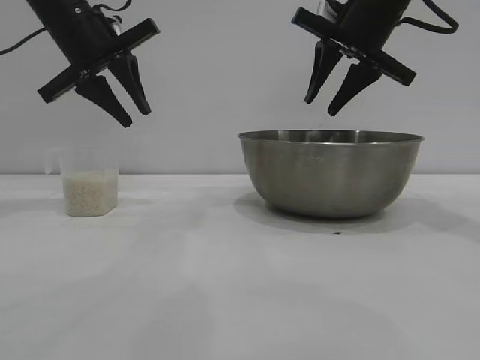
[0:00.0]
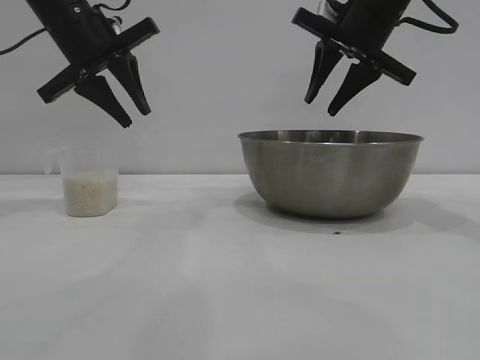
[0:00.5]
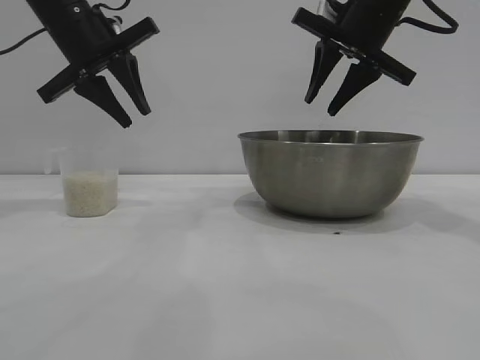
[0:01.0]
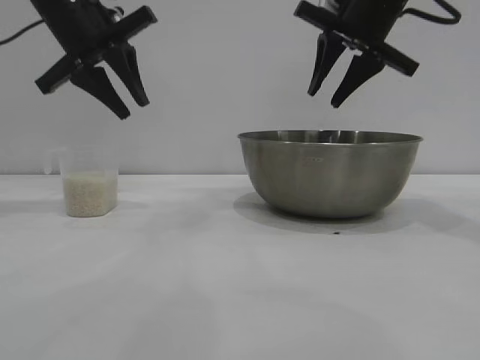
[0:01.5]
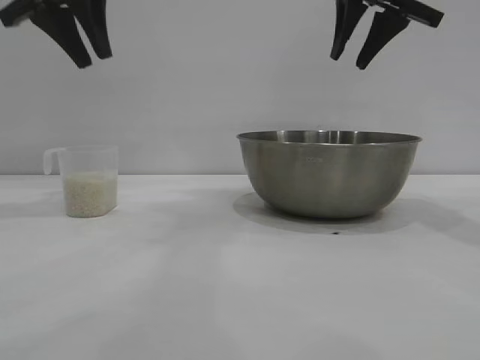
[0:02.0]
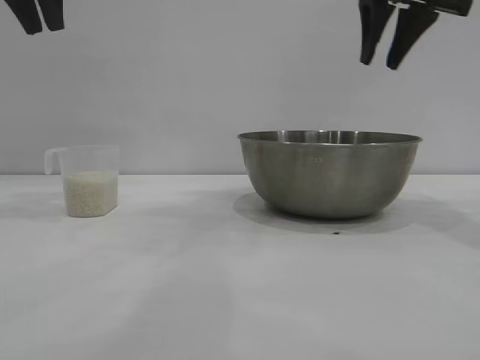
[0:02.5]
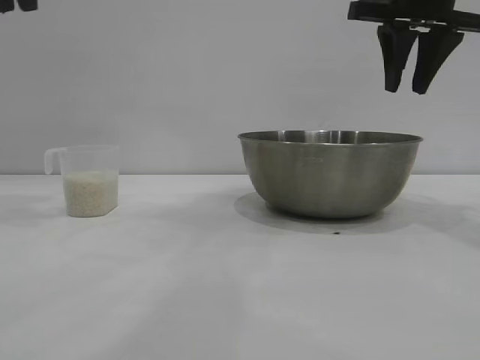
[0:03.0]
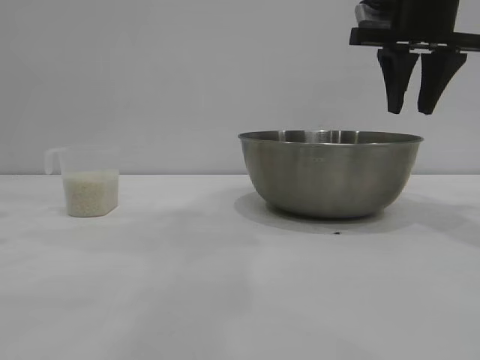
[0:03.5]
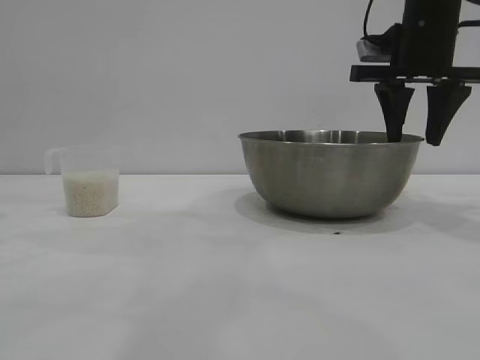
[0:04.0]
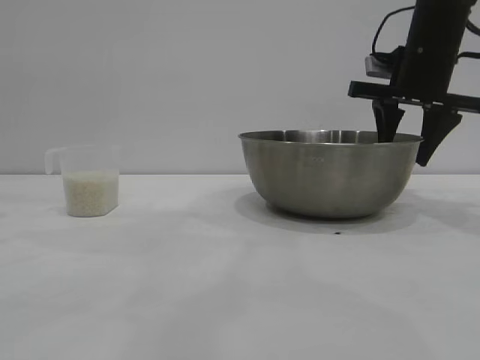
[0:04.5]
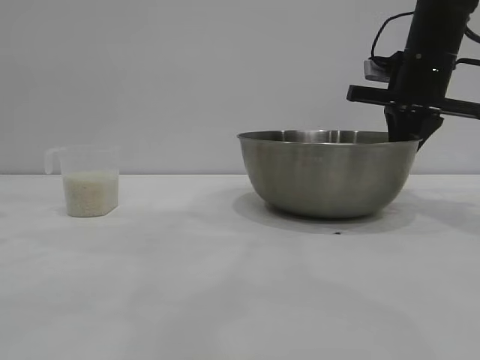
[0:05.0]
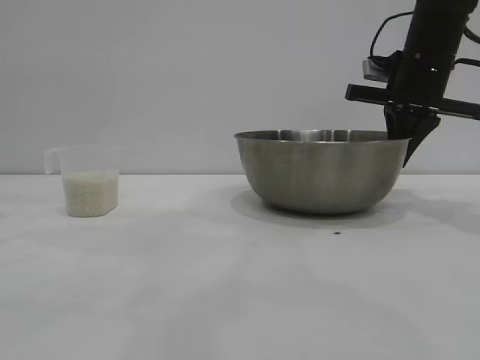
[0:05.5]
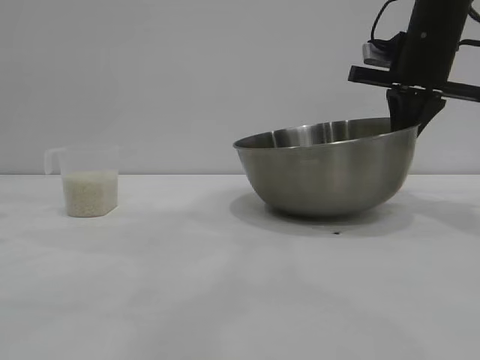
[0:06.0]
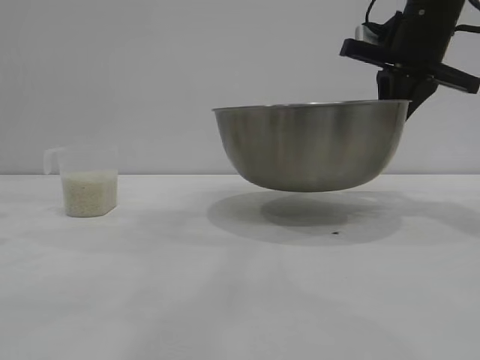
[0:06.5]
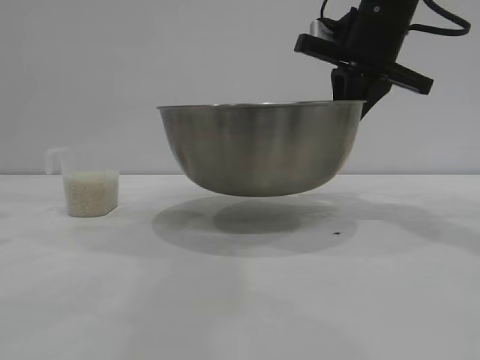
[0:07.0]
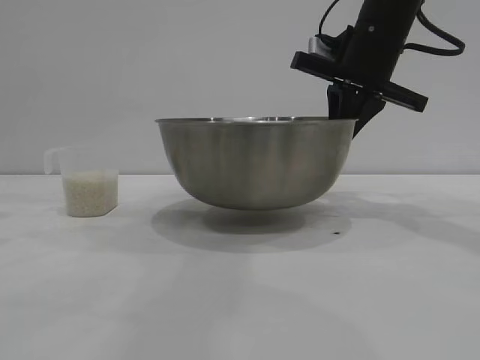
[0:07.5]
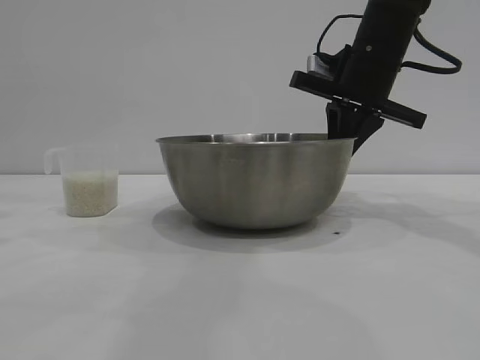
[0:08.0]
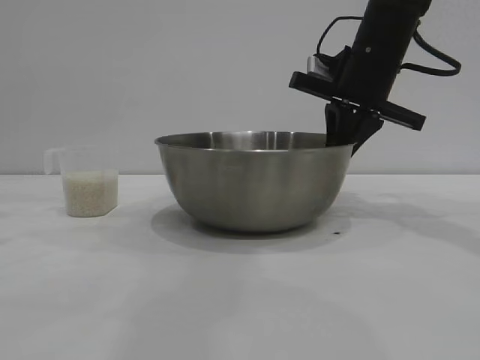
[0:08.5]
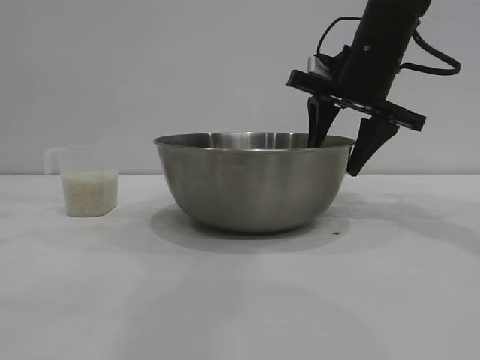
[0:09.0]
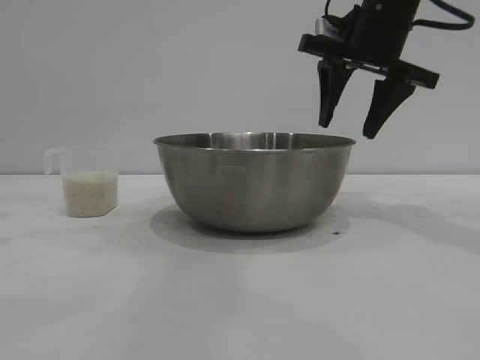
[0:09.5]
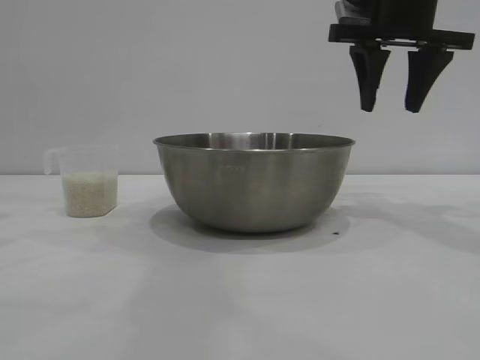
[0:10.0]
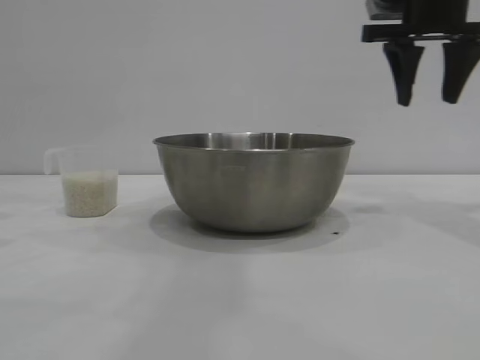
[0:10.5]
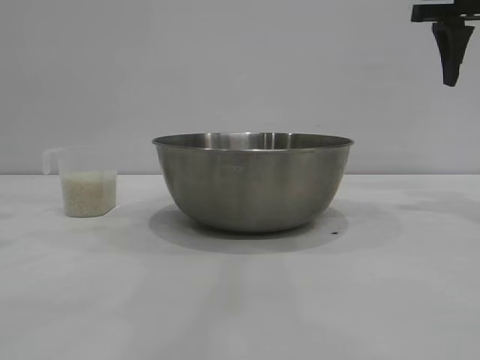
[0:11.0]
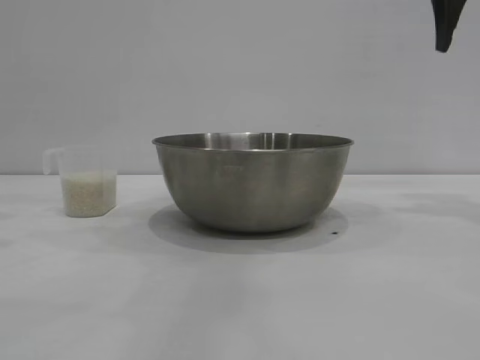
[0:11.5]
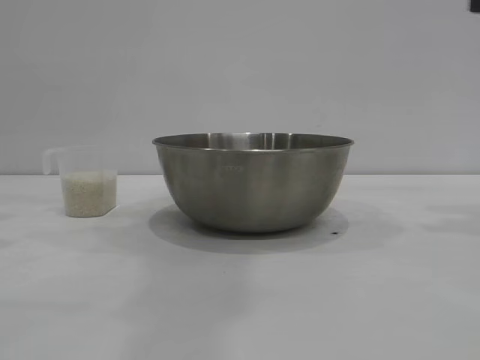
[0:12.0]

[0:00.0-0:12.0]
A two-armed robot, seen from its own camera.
Task of the whole recording: the right gripper grasp the rice container and place it in the center of the table, the left gripper grasp the rice scoop and pour the rice into the rice container.
Step, 0:00.0 to 0:06.0: Pick up the bowl with the right gripper.
Step, 0:07.0 to 0:09.0: Place the bowl in the center of view with the right gripper.

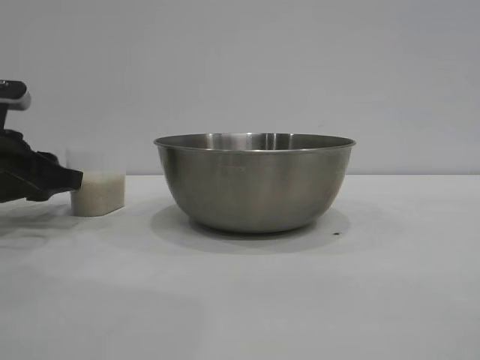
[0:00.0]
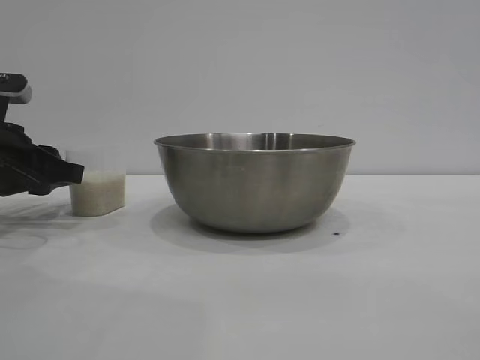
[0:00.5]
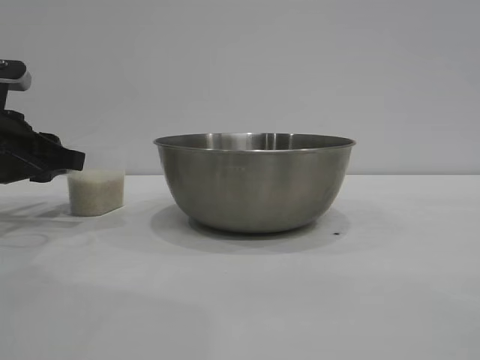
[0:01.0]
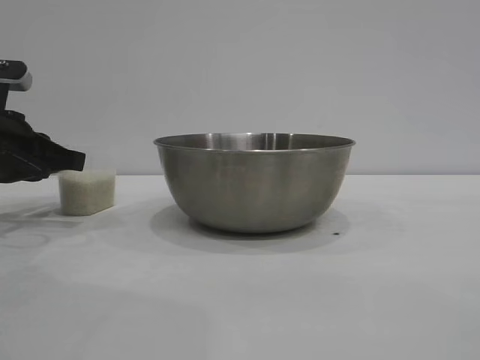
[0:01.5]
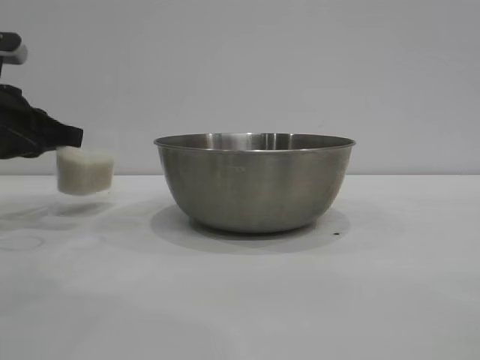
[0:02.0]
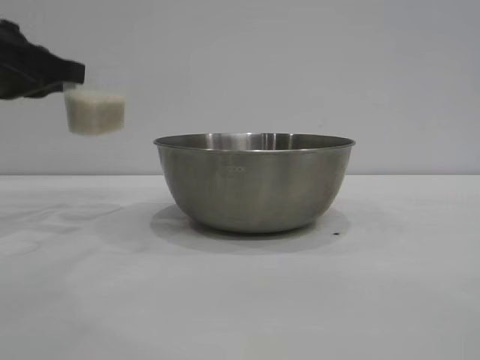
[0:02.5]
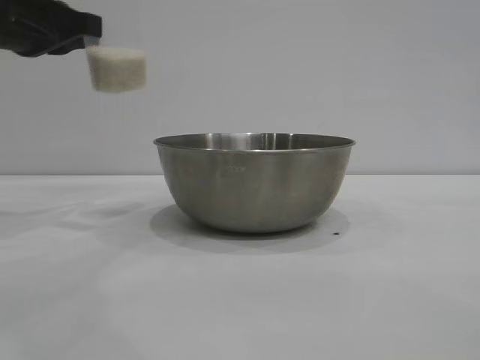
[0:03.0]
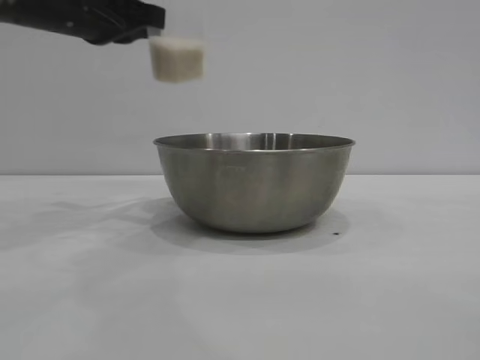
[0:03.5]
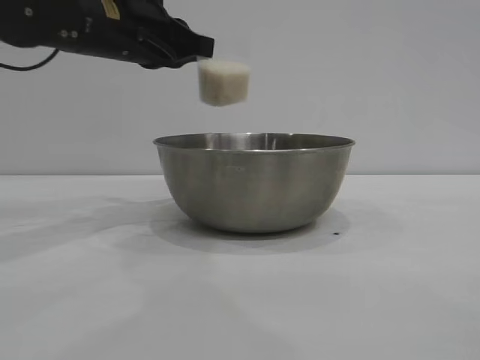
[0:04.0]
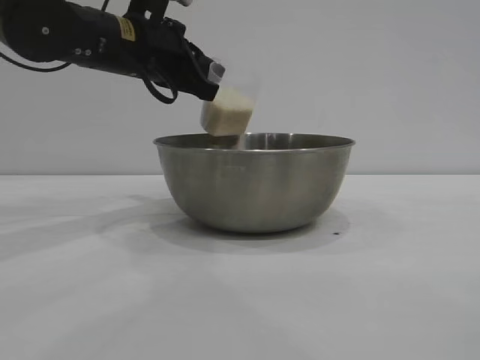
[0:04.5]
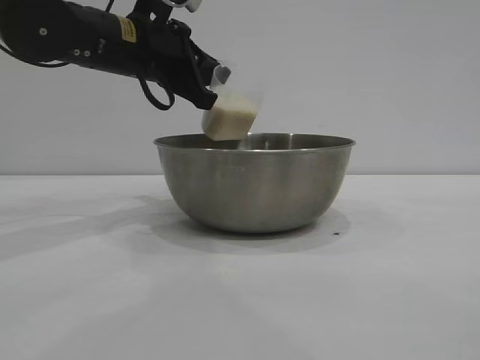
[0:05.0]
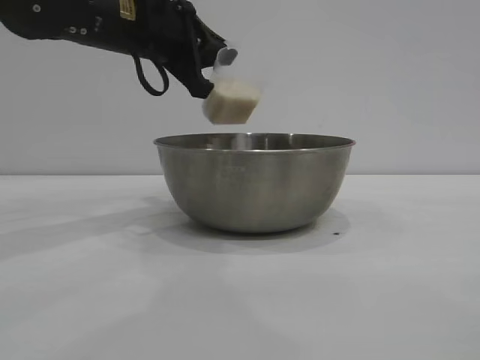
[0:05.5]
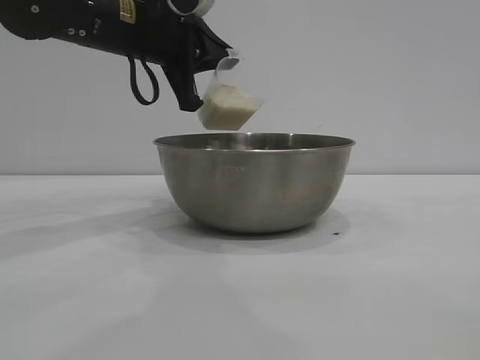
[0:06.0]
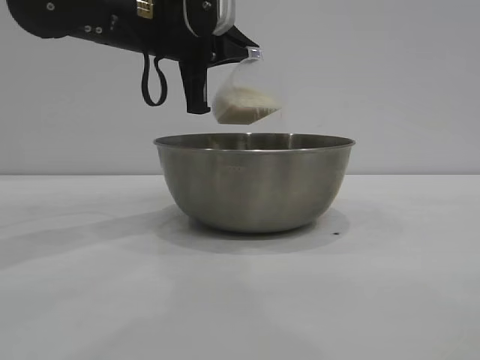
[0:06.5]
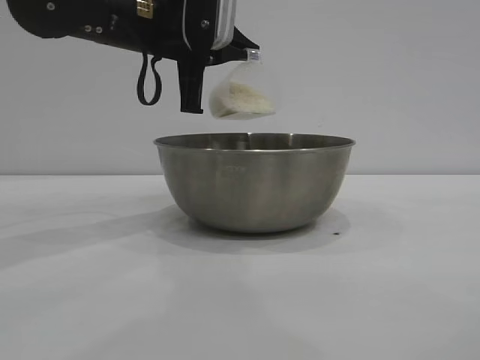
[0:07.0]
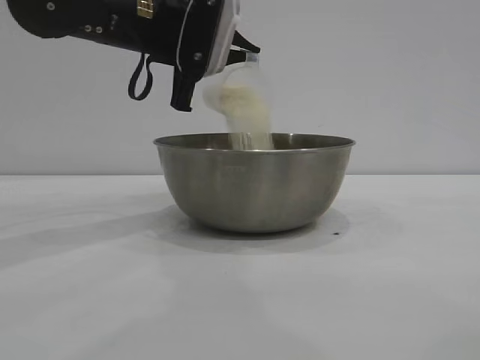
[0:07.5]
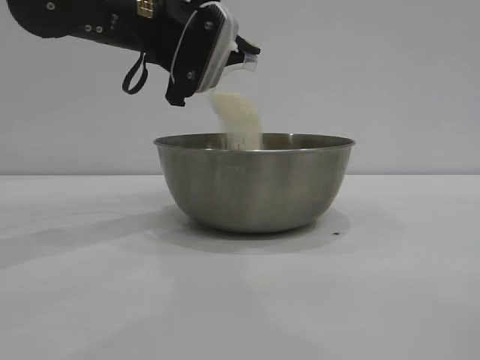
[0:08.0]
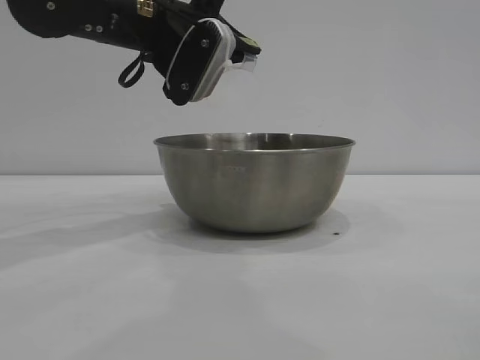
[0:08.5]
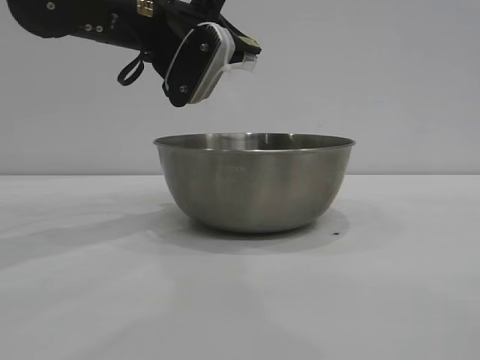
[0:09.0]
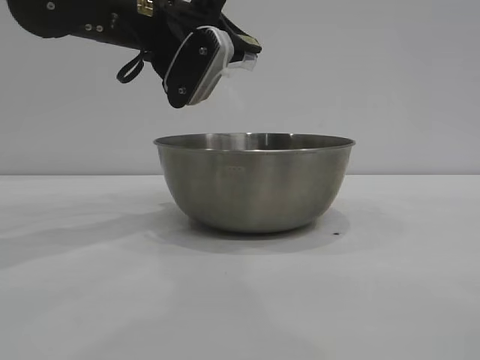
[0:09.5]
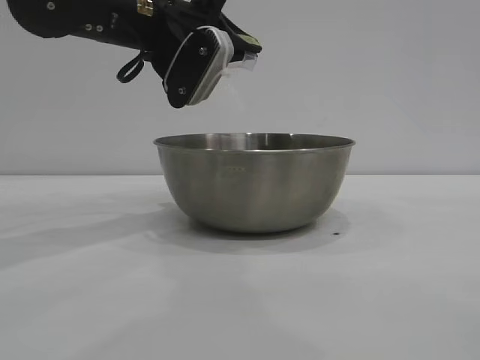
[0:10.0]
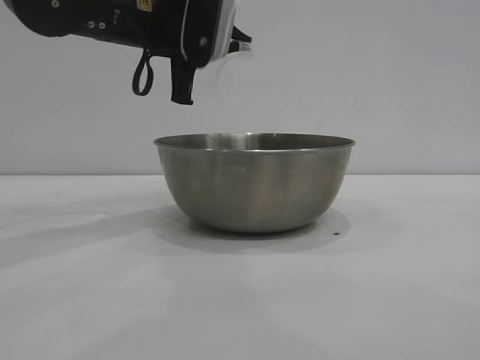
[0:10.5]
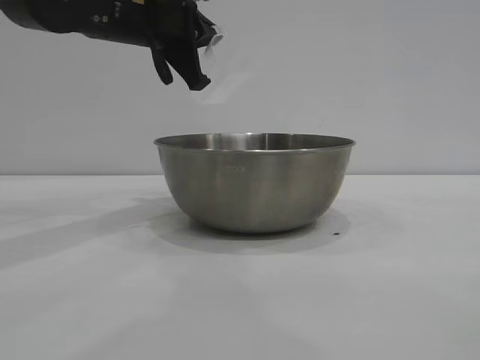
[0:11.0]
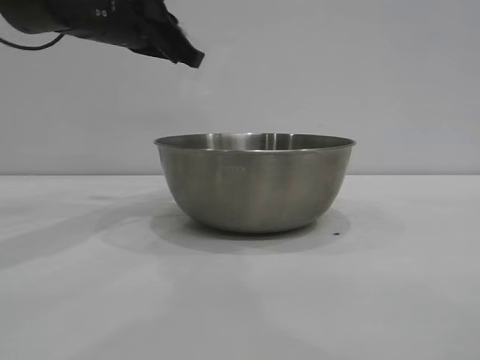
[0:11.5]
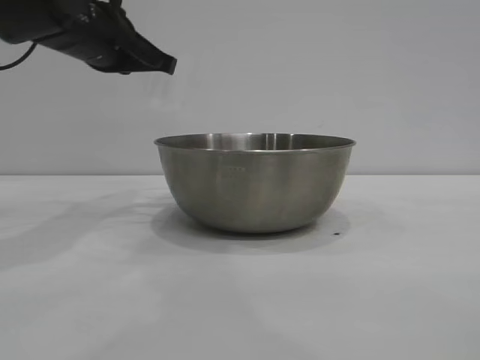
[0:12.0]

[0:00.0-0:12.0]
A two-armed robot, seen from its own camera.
Task of the whole recording: the right gripper grasp the rice container and place it in the center of the table, the left gripper grasp the rice scoop and pour the rice into the rice container.
Step, 0:00.0 to 0:02.5: Pick up the cup with rice in it with the left gripper.
Step, 0:03.0 to 0:10.5: Pour the rice from the cup into the bowl with the left gripper.

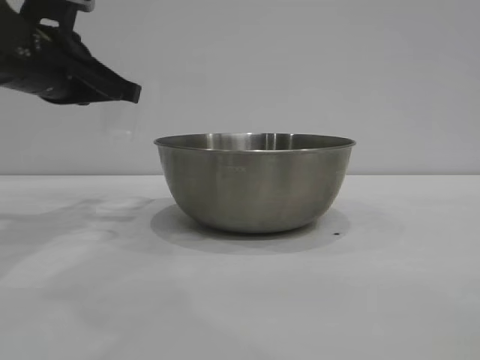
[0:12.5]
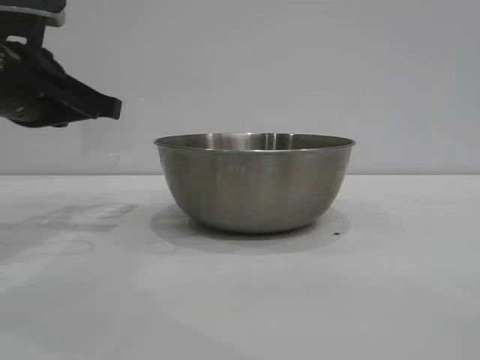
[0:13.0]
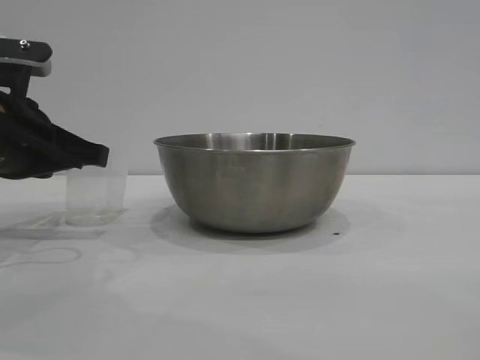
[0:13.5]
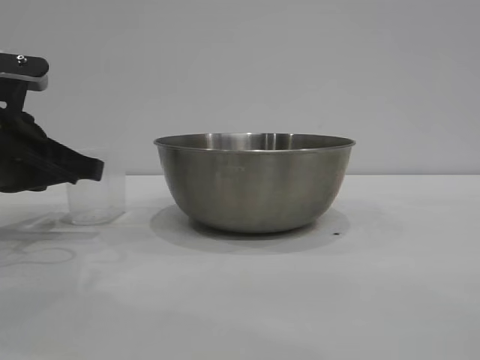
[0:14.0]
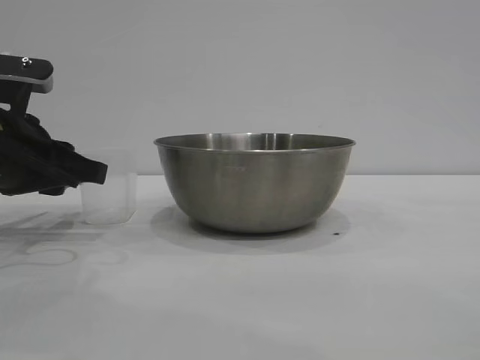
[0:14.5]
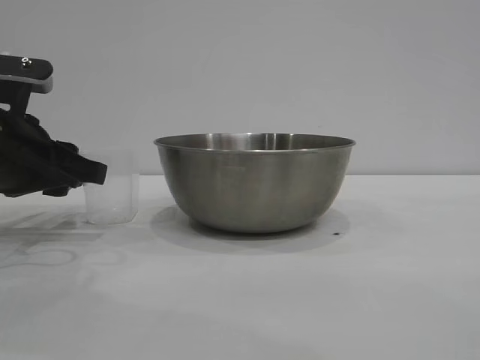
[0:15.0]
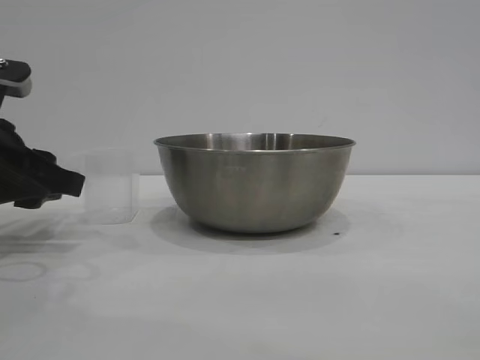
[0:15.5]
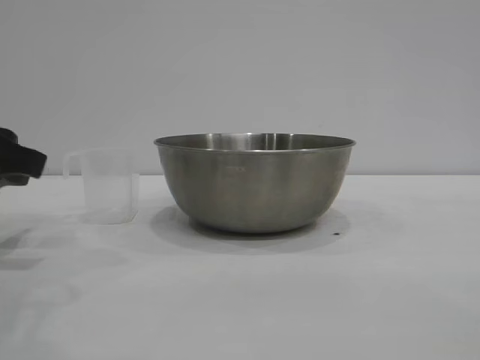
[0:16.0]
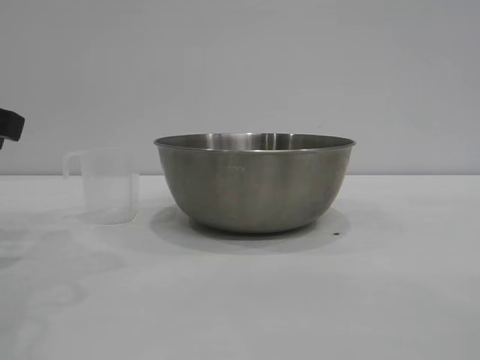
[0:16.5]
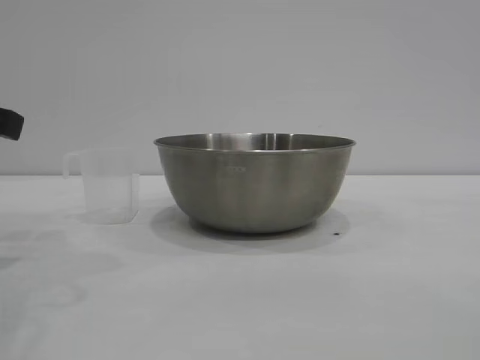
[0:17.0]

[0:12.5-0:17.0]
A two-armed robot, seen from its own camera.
Task of the whole recording: the right gripper grasp the rice container and place it in the center of the table, the left gripper grasp the rice scoop and pour the rice into the rice container.
Step, 0:12.5 to 0:15.5: Place the cup on the table with the left gripper.
